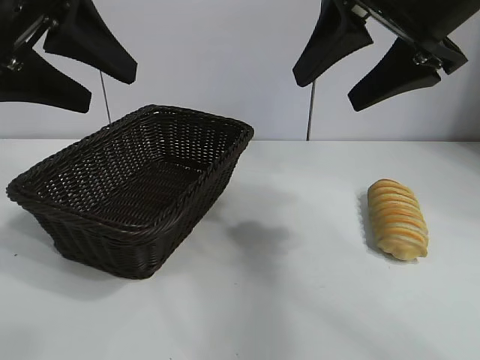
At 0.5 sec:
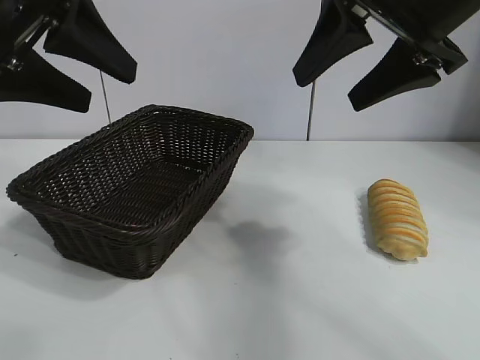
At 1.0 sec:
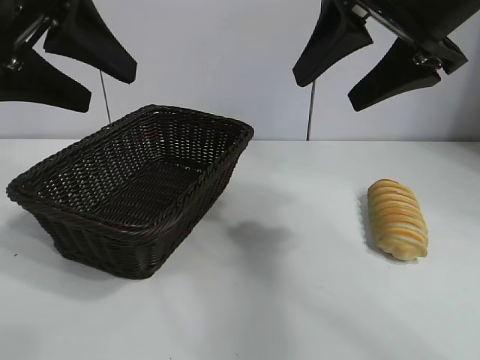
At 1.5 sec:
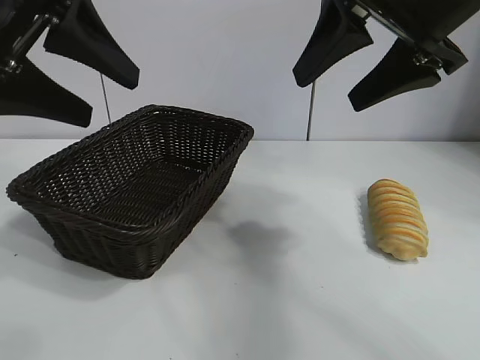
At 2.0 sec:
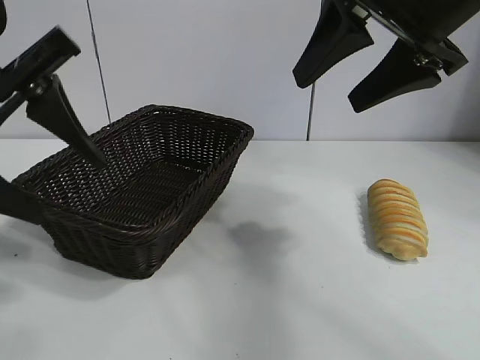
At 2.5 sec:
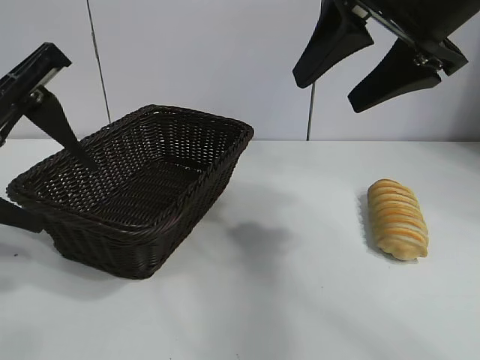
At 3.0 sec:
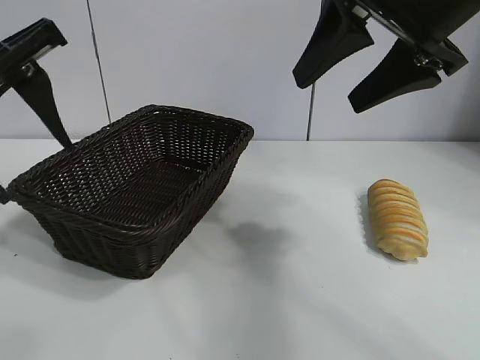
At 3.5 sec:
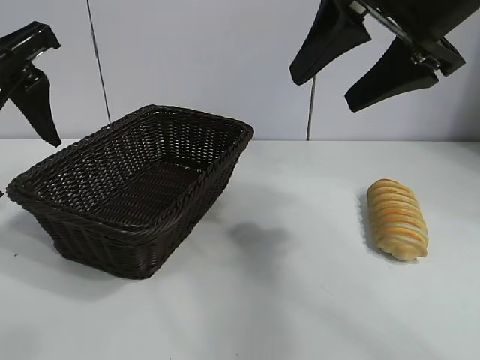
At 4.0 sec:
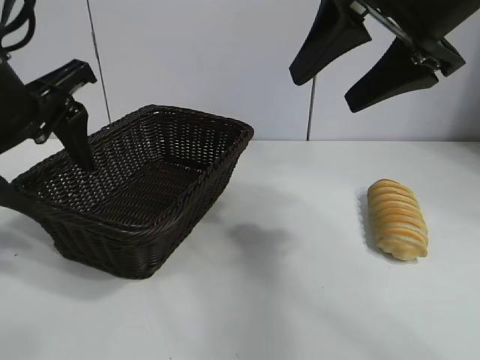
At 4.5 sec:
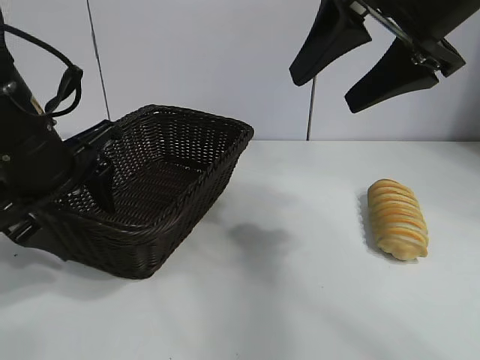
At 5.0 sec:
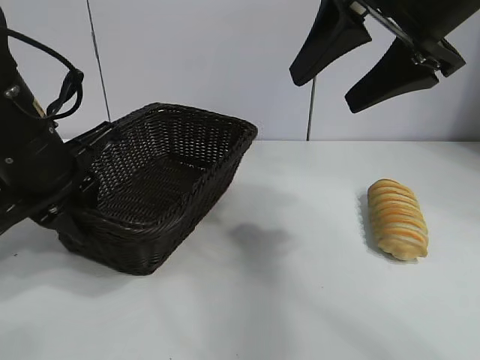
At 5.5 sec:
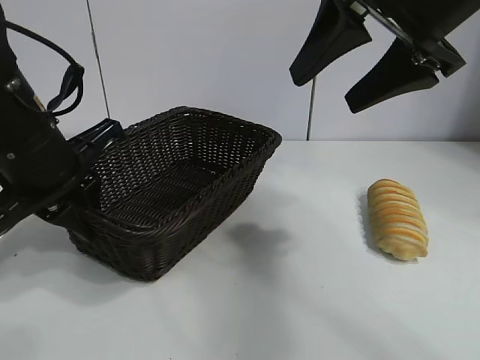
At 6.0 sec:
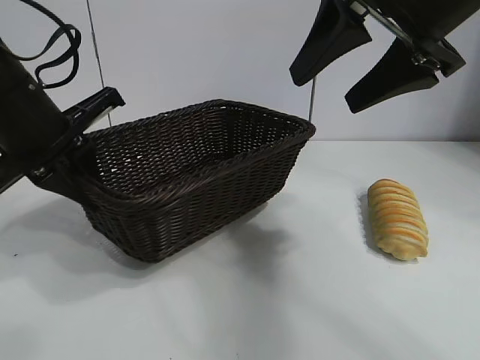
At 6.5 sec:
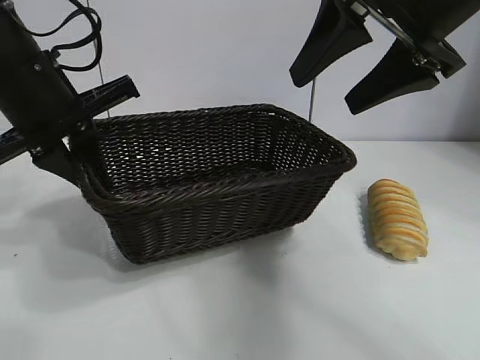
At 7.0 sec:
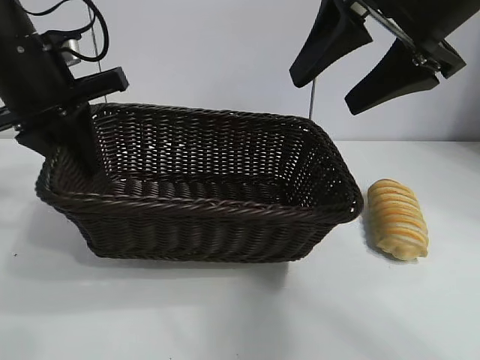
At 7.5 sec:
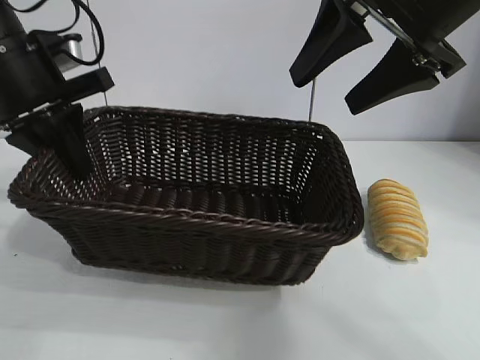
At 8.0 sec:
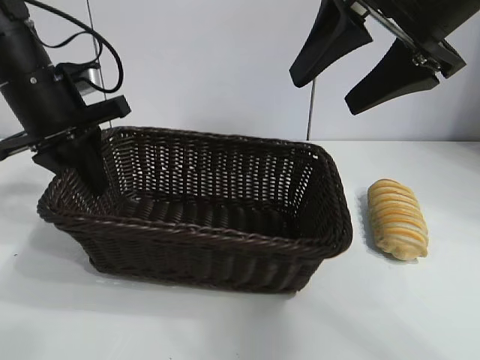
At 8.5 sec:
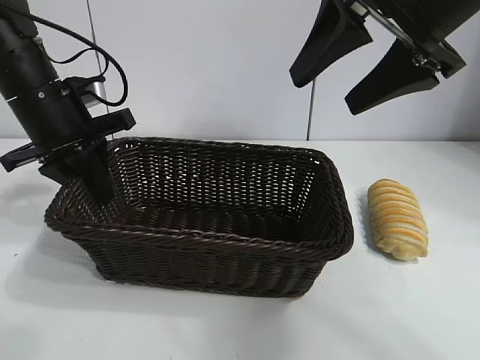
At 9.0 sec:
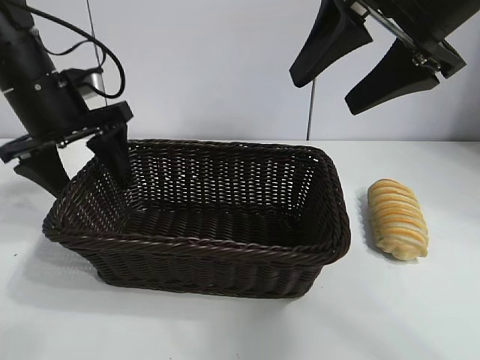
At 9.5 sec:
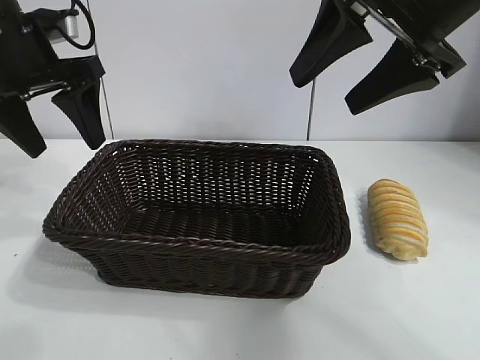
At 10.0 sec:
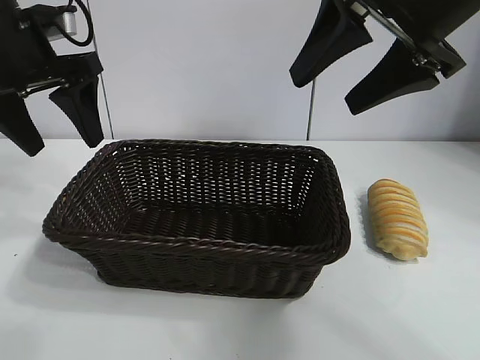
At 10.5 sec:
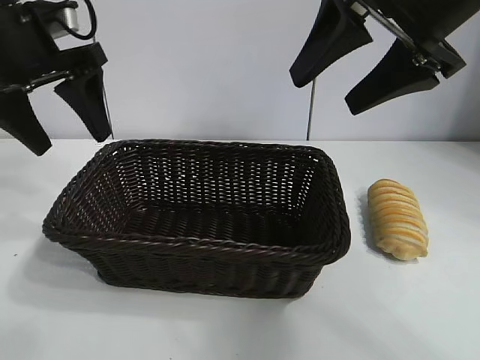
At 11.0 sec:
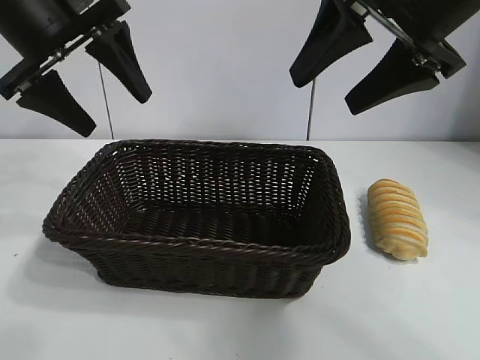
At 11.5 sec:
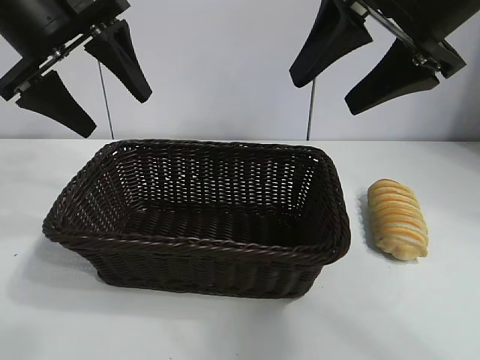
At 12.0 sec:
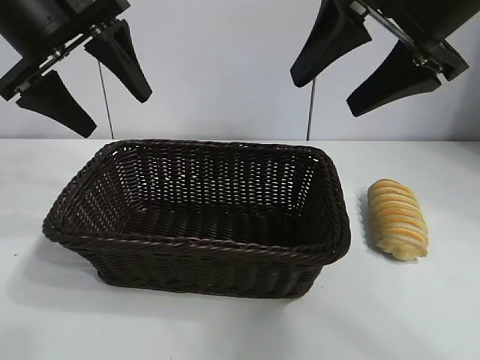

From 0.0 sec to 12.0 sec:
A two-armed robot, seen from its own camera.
Task of the whole recording: pick up the long bread and put it into the basket.
Step, from 1.5 sec to 5.0 sec: Grasp the basket with the left gripper.
Step, from 5.5 sec to 8.5 sec: Place the basket in the center of the table with the left gripper.

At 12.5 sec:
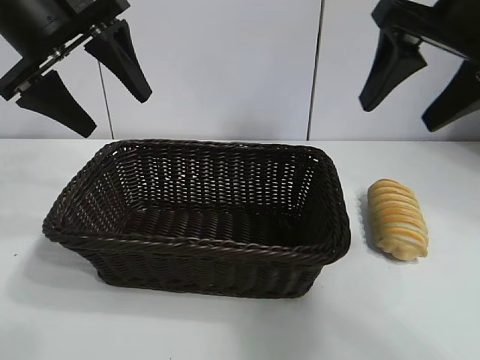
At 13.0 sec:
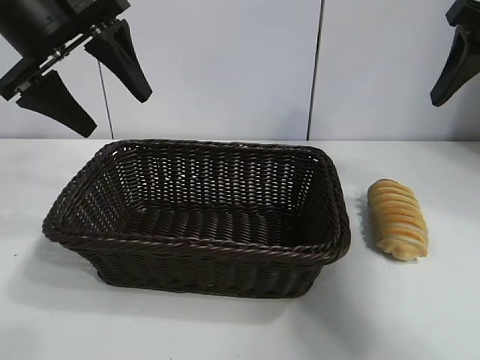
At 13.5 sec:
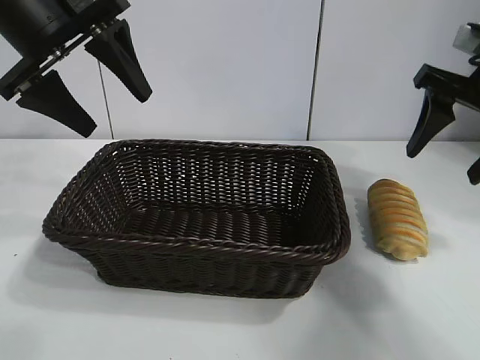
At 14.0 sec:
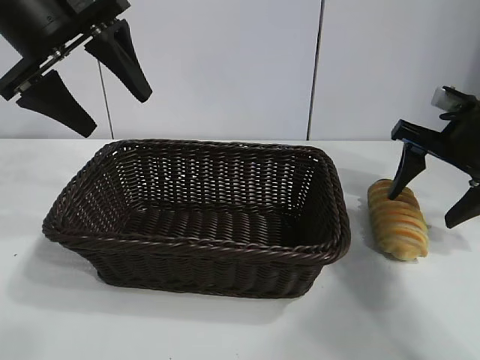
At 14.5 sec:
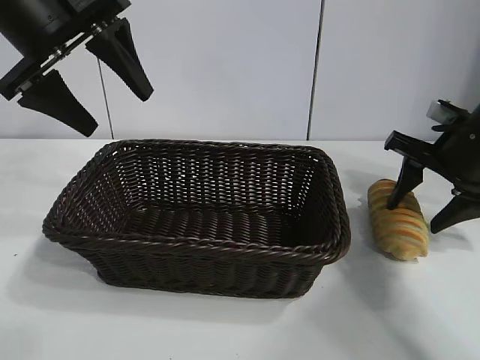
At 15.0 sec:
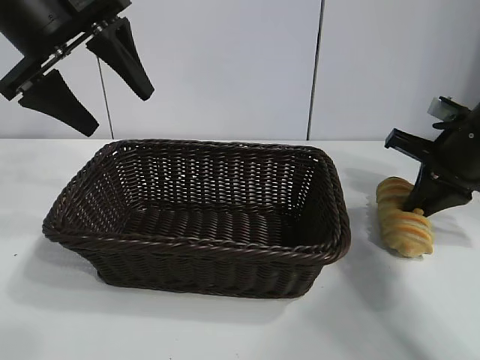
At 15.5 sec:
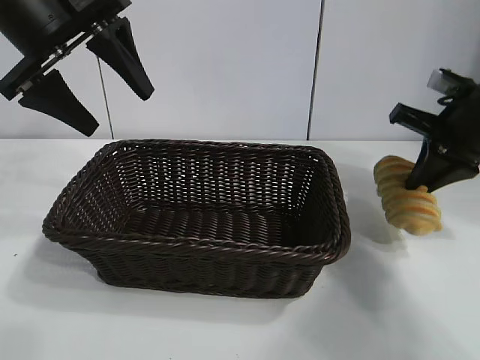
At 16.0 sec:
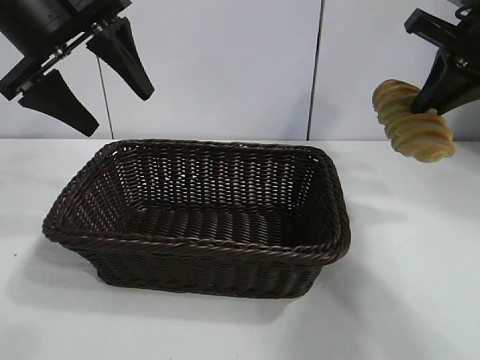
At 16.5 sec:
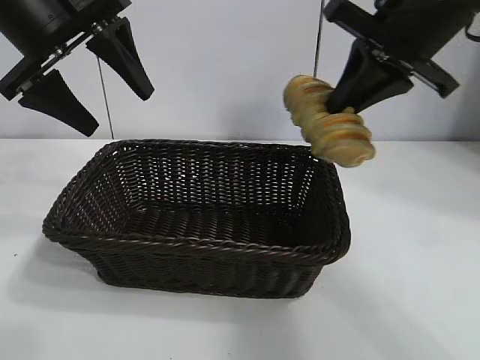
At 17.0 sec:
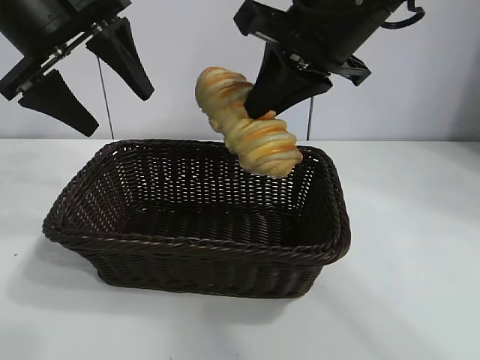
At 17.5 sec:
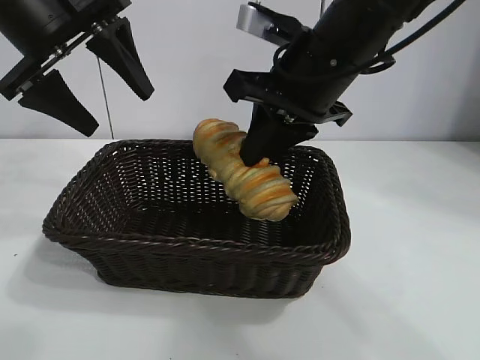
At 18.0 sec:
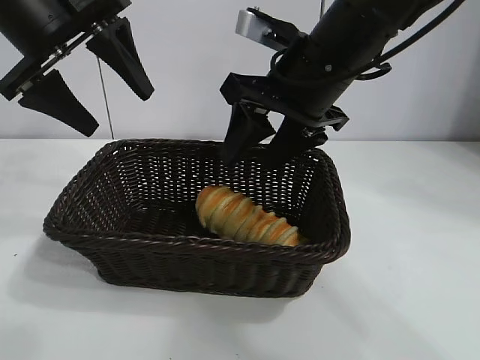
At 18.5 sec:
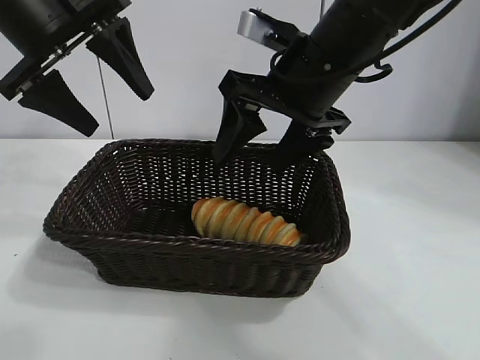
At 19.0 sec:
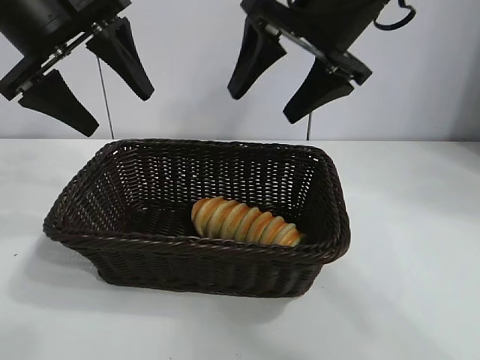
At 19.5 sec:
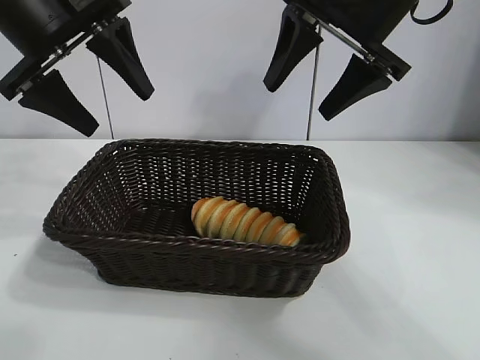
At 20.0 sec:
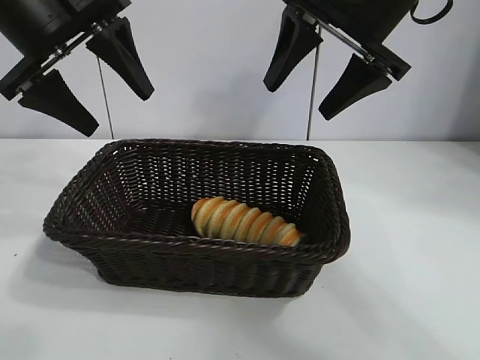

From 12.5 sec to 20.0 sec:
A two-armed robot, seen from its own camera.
Task of the whole recording: pick up the long bread and put it into the basket.
Step, from 12.5 sec to 15.0 sec: Grasp the long bread with right gripper.
Step, from 15.5 sec to 18.0 sec: Place the long bread in the basket with right gripper.
